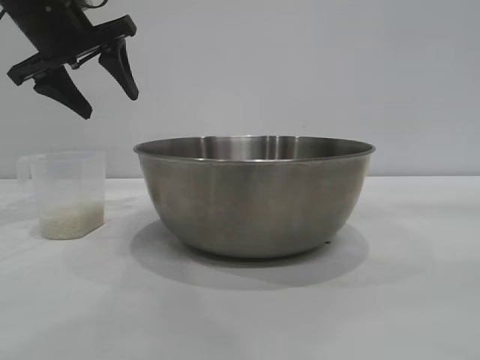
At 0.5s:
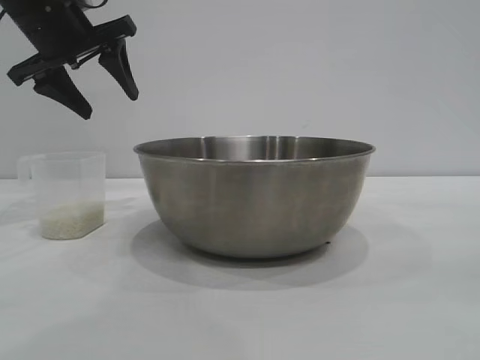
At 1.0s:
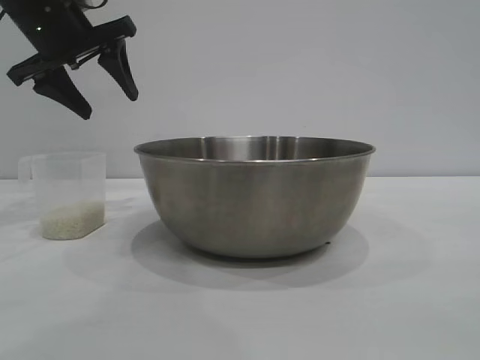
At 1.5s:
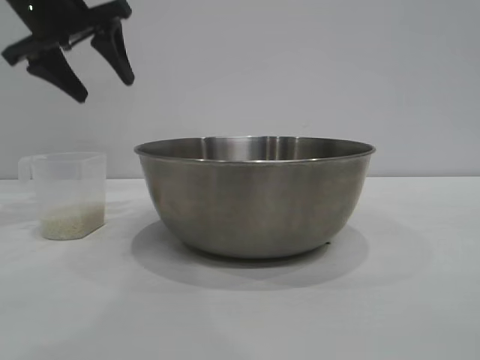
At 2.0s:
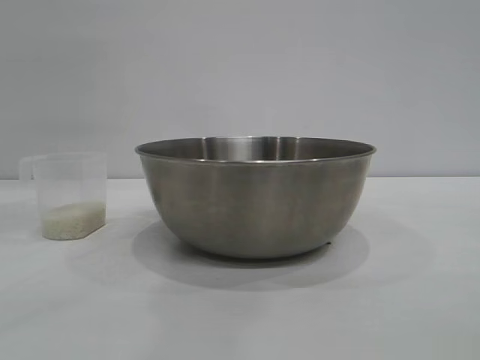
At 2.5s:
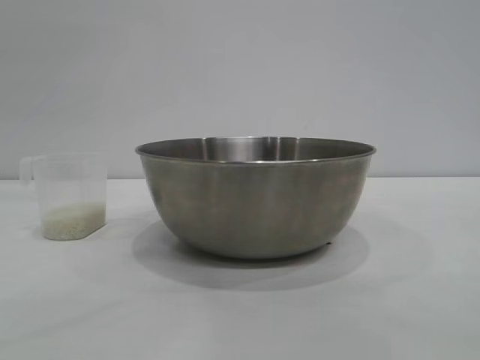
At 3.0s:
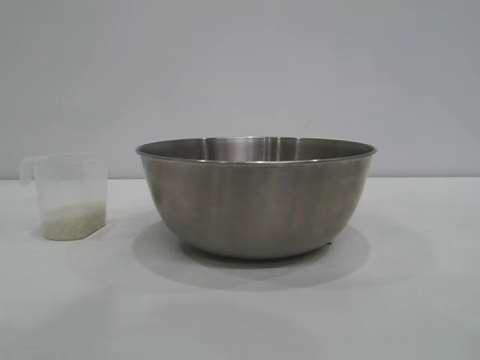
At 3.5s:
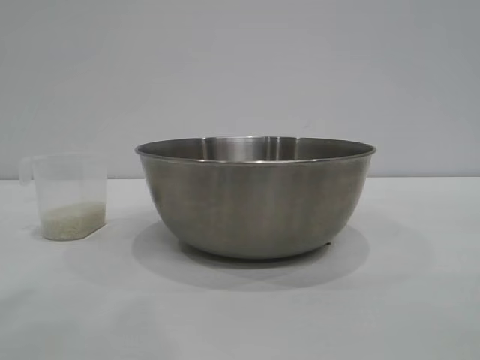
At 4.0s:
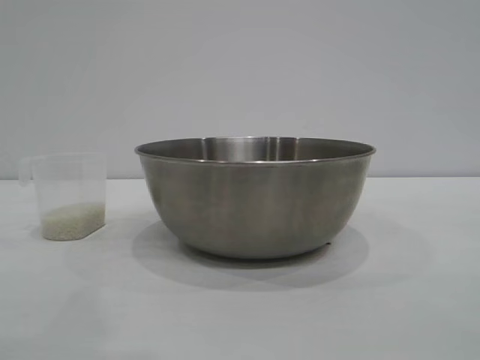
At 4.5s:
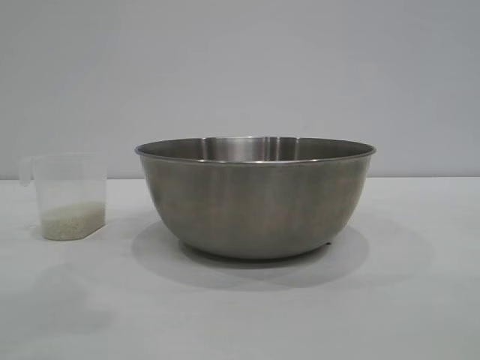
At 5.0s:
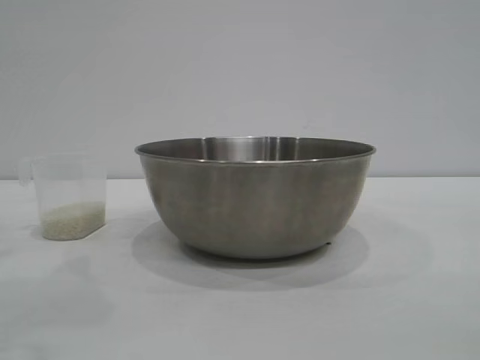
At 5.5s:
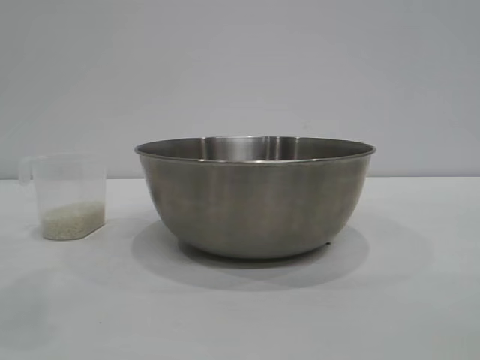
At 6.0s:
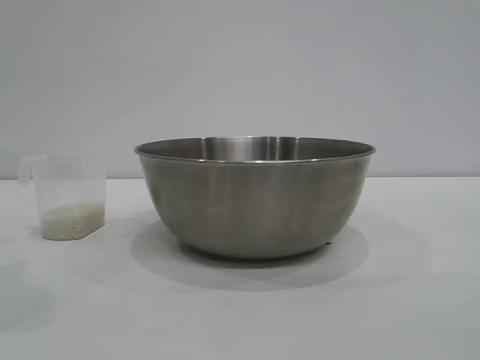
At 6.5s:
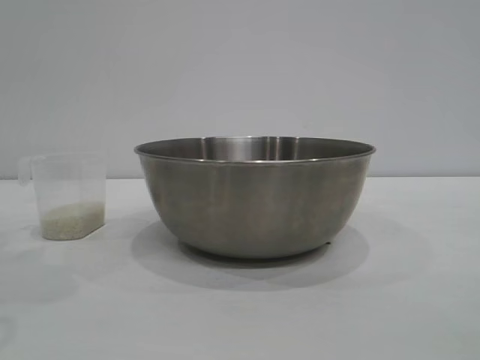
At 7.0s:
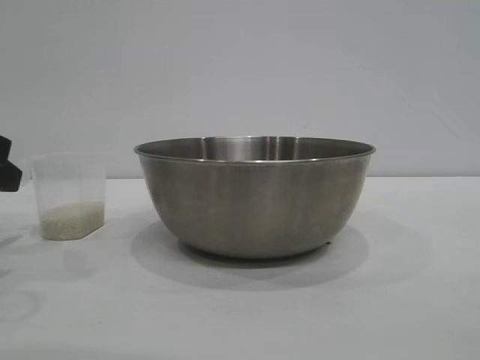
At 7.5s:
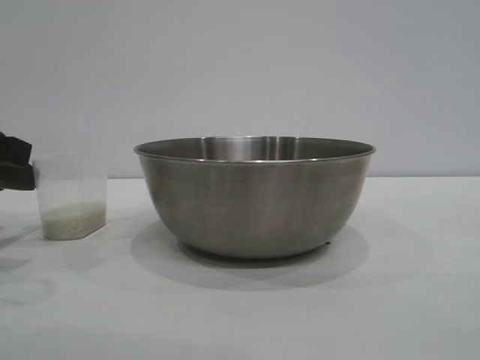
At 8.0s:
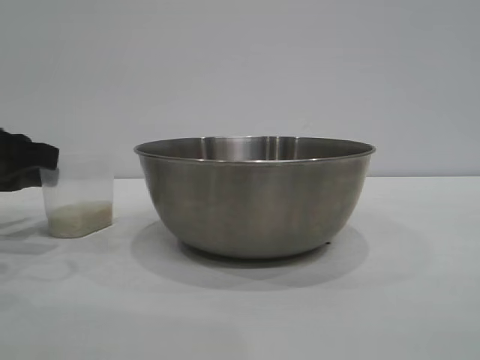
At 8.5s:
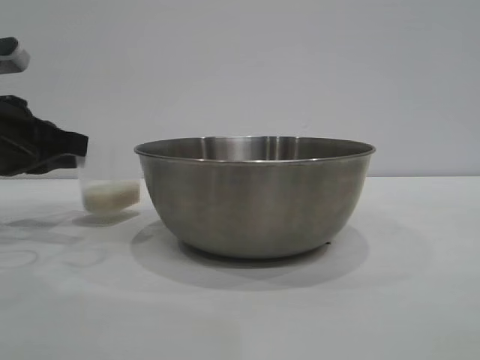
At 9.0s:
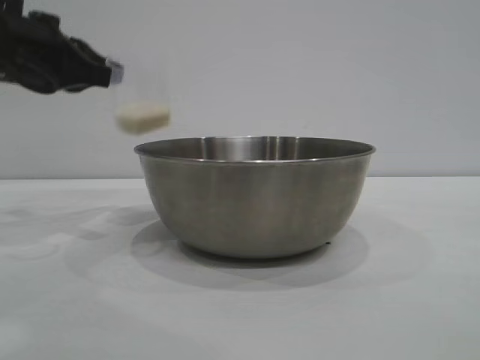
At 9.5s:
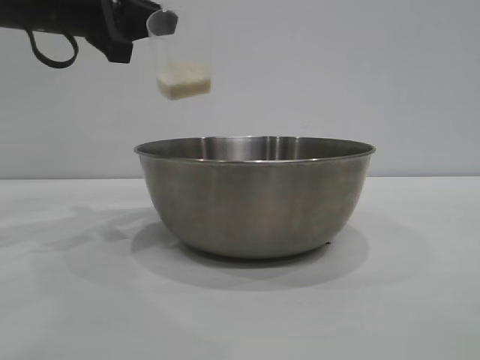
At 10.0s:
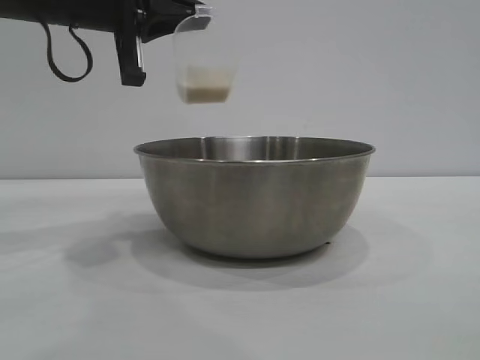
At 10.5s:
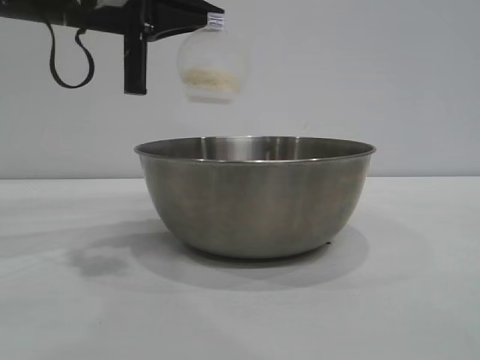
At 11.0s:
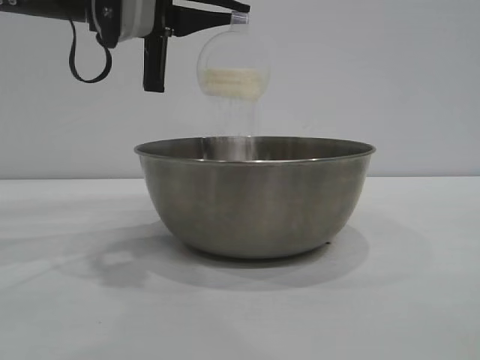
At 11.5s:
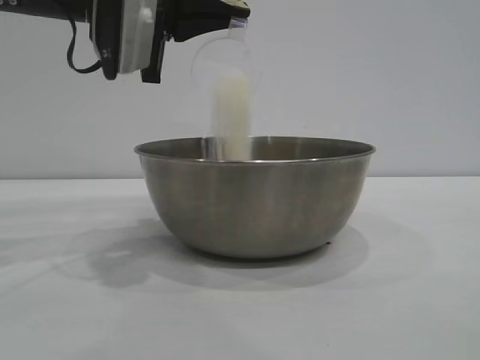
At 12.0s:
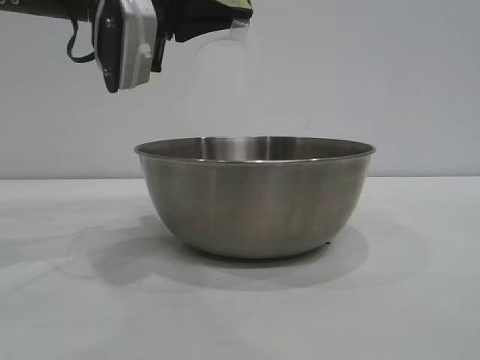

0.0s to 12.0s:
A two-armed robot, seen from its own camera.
Task of the whole recording: the right gripper grasp the rice container and place it in the center of the table, the left gripper grasp the rice scoop and pour the rice into the rice container.
Step, 0.0s to 8.5s: Pick up the cup with rice in it with the left gripper.

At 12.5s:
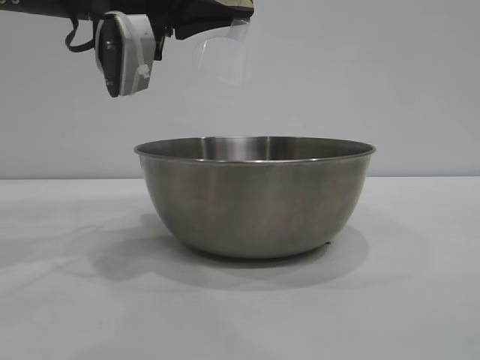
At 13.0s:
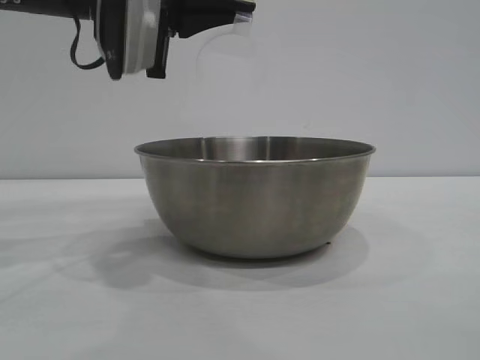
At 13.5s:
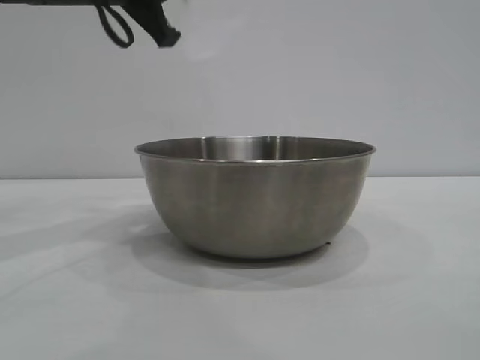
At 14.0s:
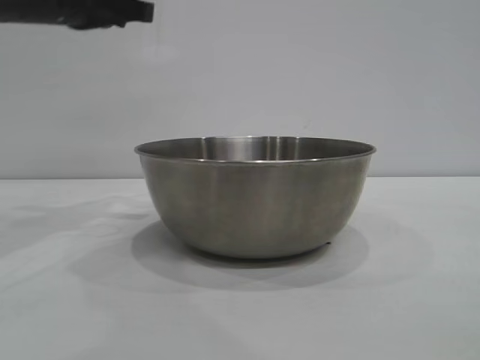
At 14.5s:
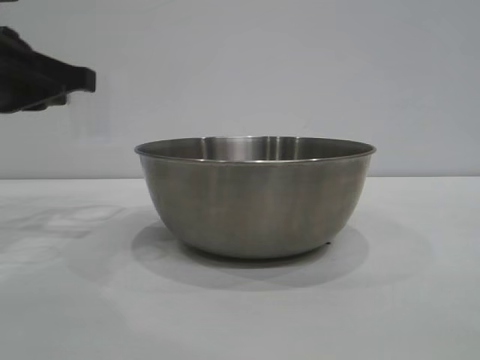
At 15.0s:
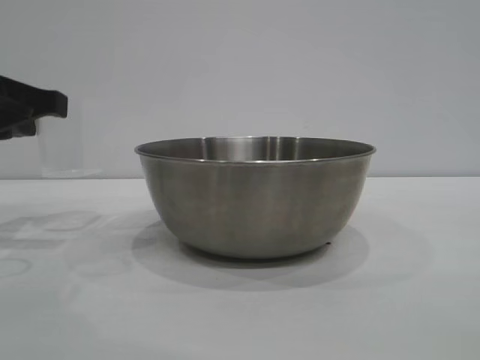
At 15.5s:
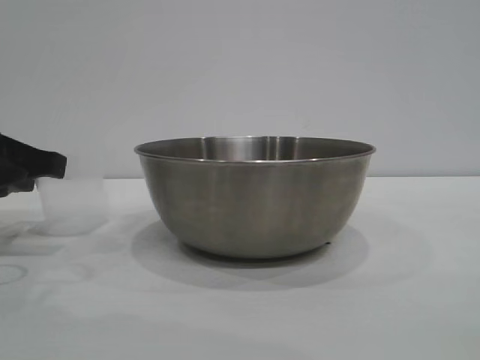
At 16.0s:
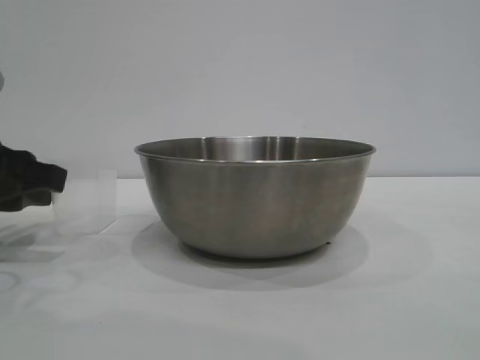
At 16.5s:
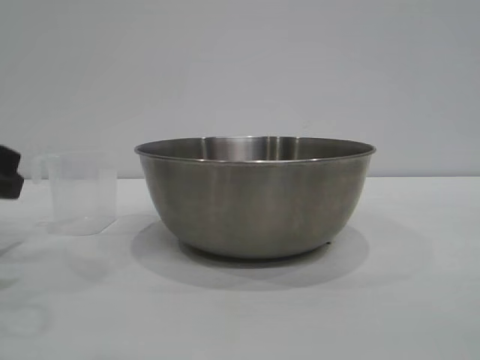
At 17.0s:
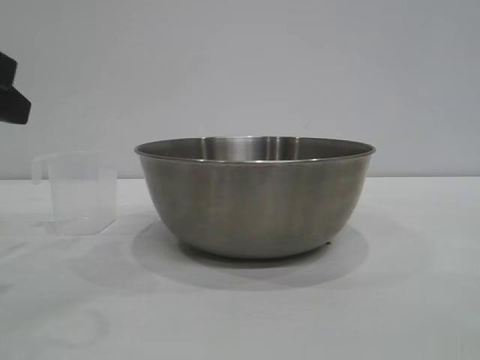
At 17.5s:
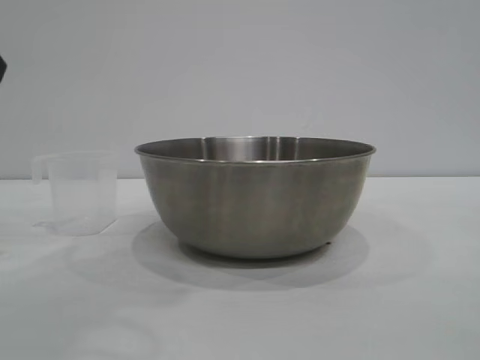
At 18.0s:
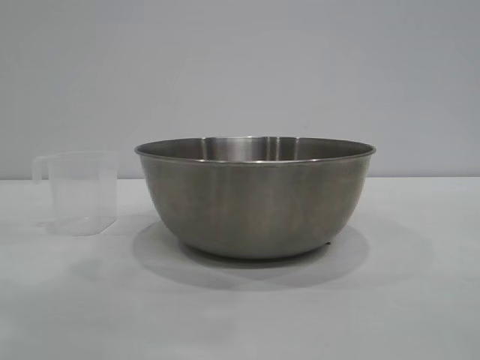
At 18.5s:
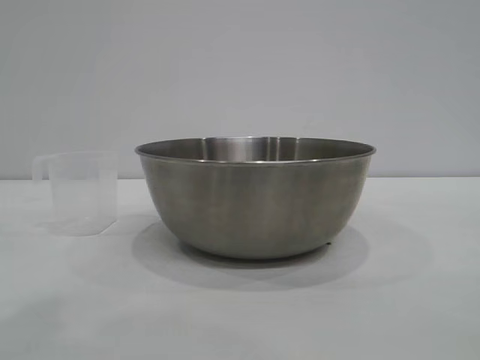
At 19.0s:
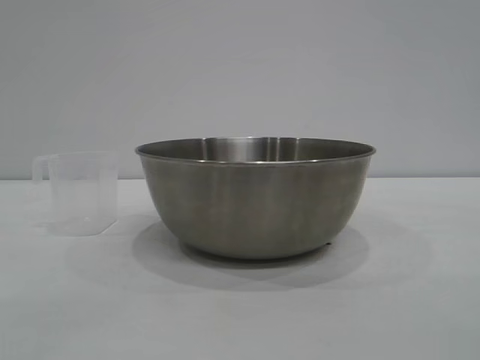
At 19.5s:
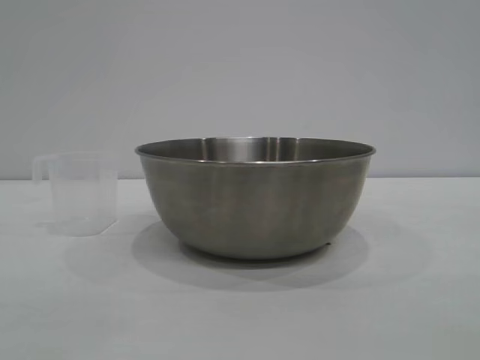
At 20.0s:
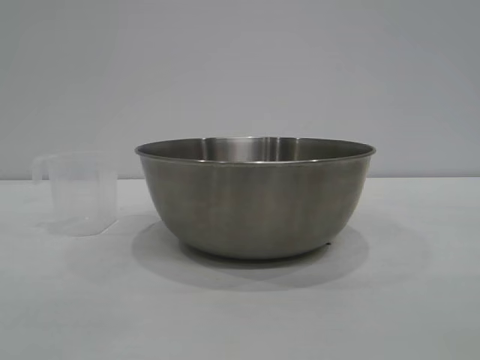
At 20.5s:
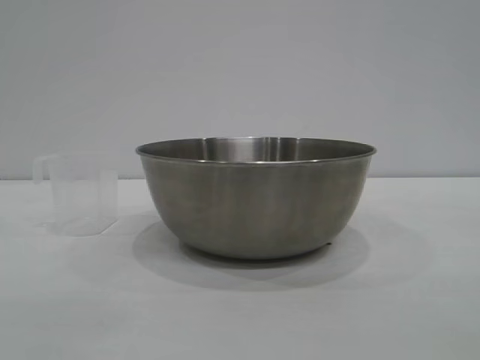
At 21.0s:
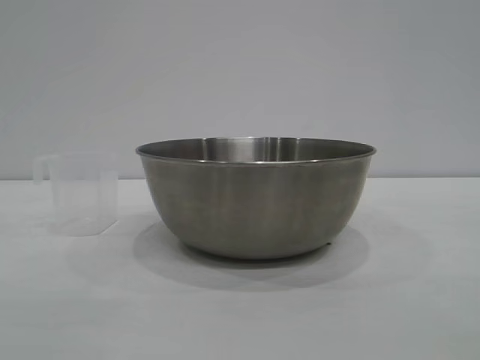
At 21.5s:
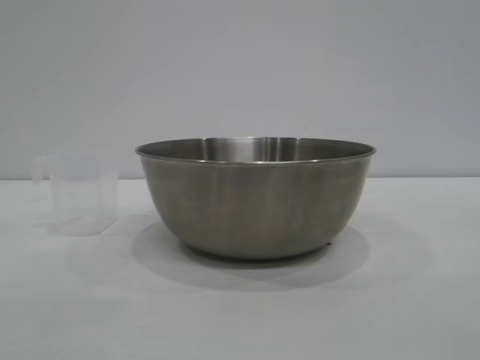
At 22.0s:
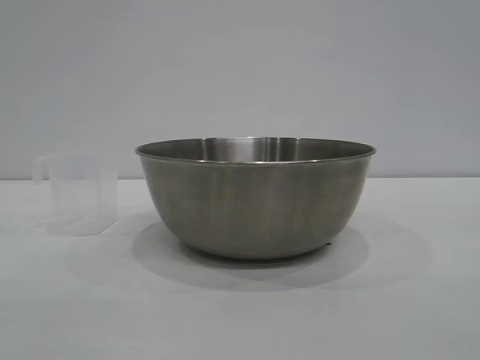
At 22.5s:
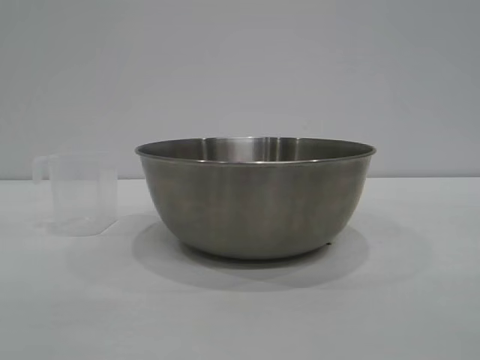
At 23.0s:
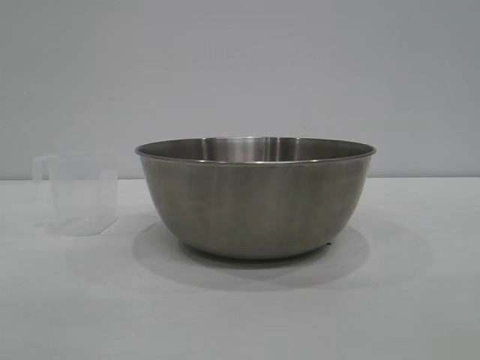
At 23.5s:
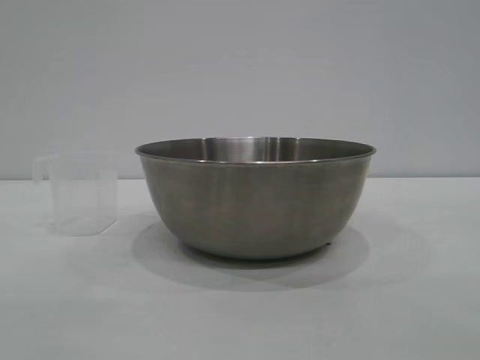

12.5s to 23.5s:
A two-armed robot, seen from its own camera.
Task of the whole recording: the right gripper grasp the rice container and place it in the center of the table, the left gripper grasp the rice scoop and pour the rice into the rice container.
Step, 13.5s to 16.0s: Place the cup on the table with the left gripper.

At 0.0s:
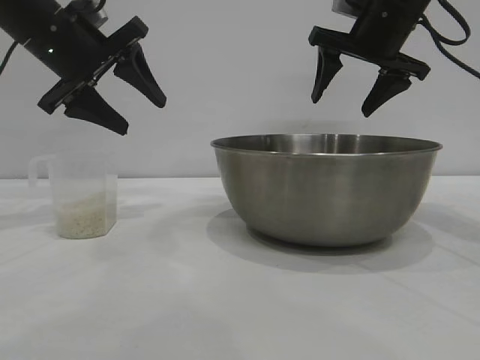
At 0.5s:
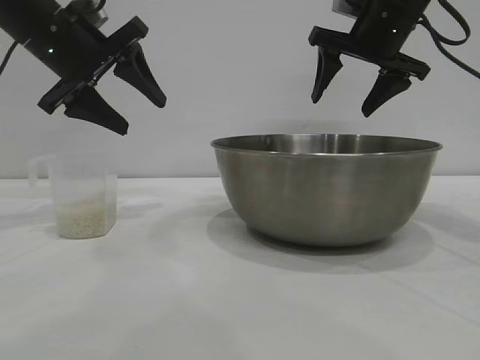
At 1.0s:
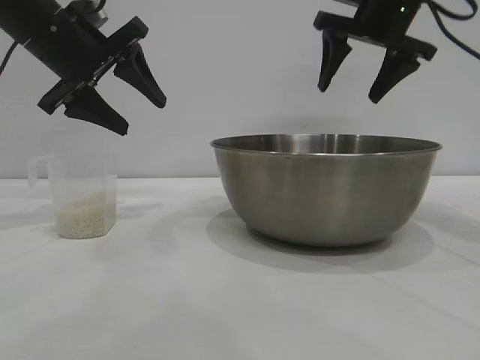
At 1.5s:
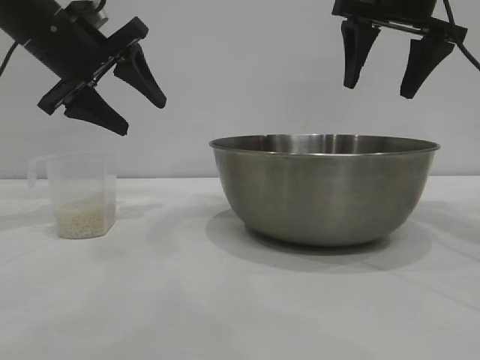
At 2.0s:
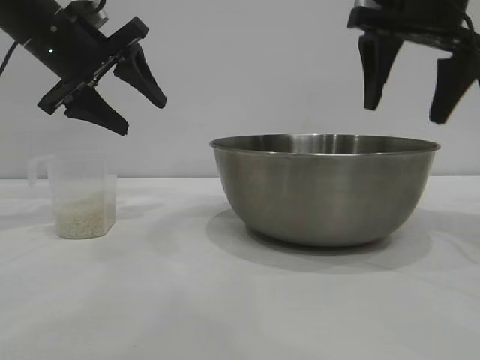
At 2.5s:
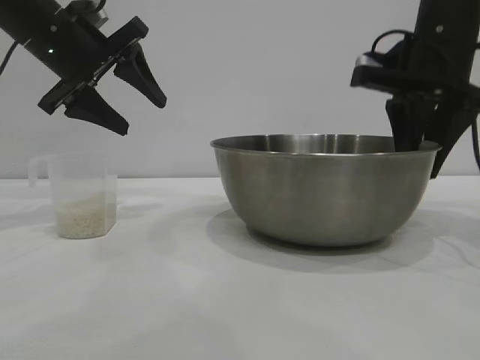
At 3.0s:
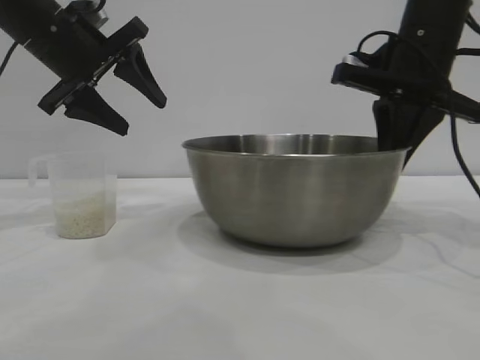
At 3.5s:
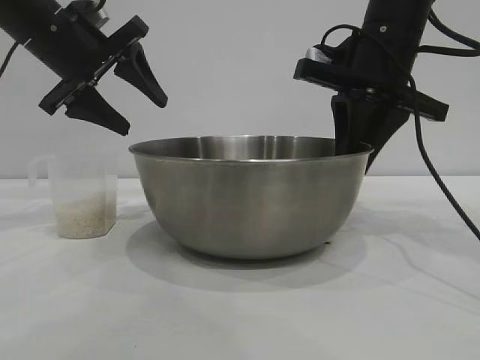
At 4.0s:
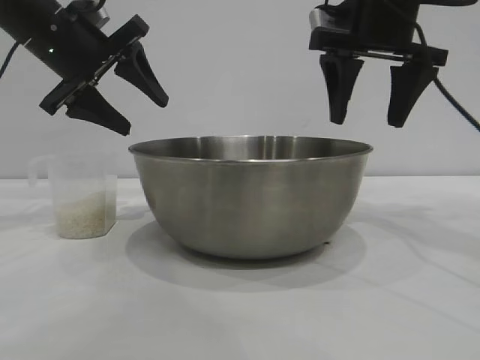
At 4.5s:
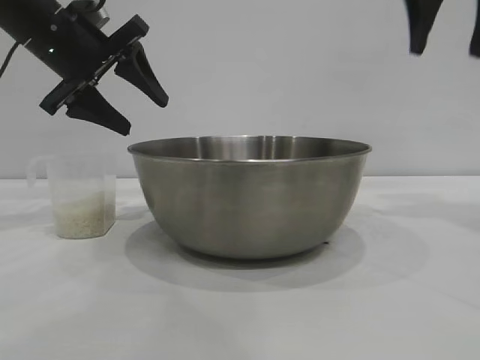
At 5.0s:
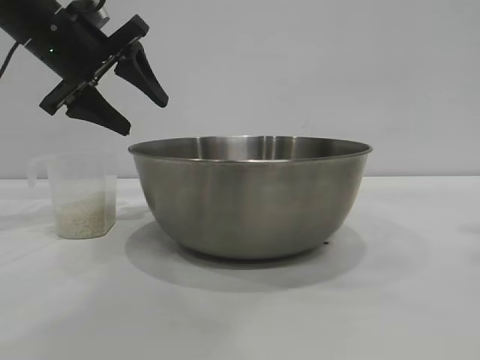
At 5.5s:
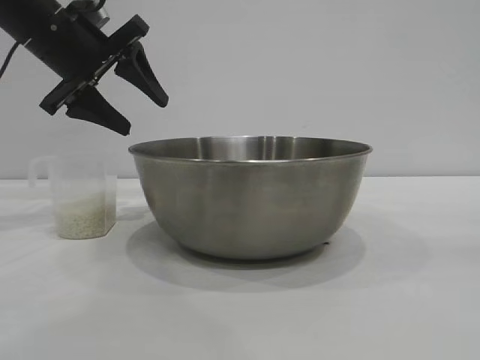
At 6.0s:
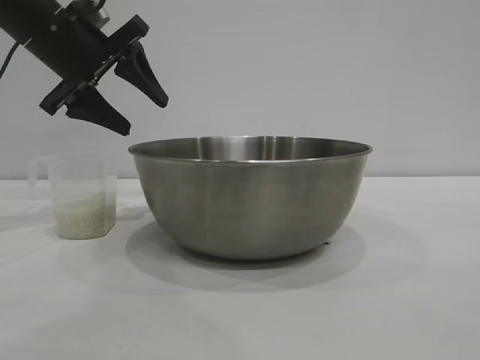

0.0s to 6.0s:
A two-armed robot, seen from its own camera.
Task of the whole recording: the right gripper grasp the rice container and place it in the center of the table, the left gripper grasp the rice scoop and pour the rice into the rice container.
Step, 0.0s to 3.5s: Move the bowl to the center of view with the right gripper.
